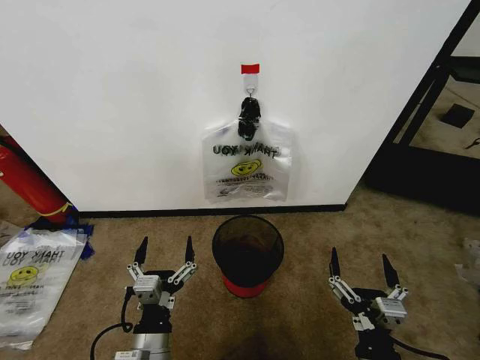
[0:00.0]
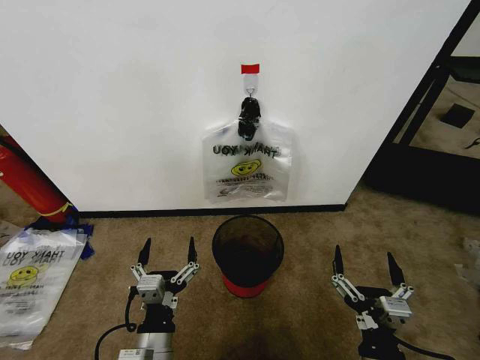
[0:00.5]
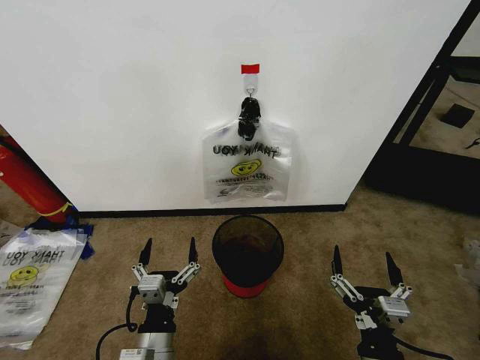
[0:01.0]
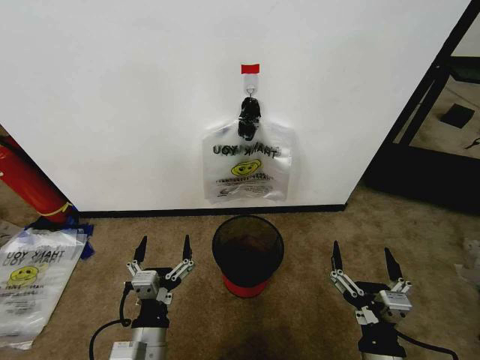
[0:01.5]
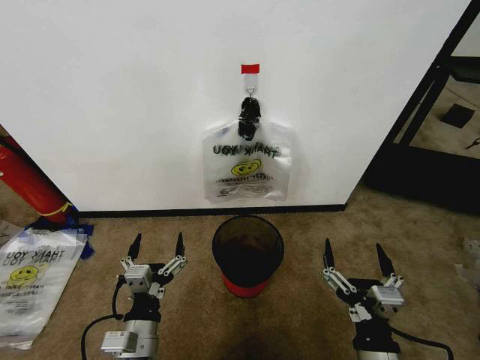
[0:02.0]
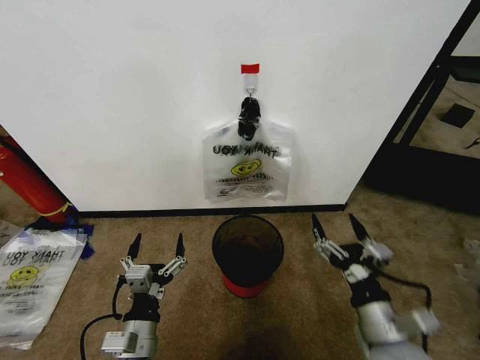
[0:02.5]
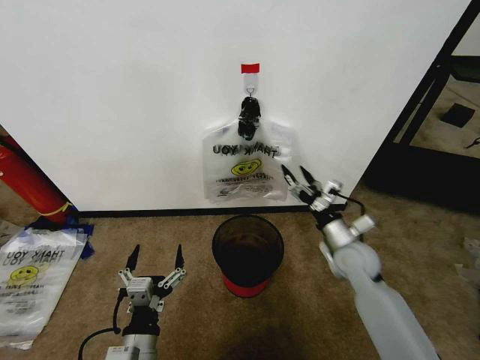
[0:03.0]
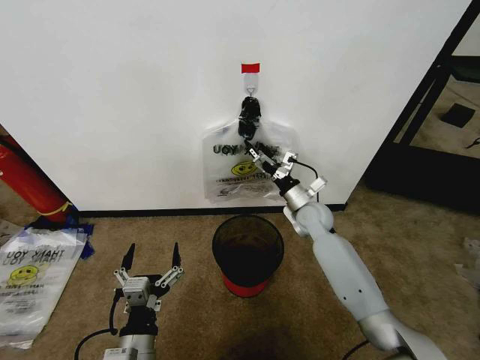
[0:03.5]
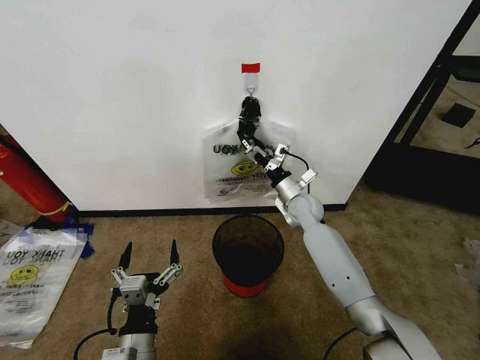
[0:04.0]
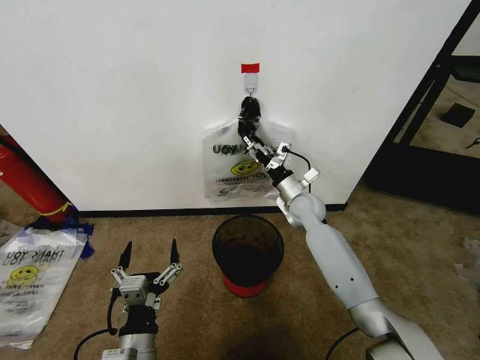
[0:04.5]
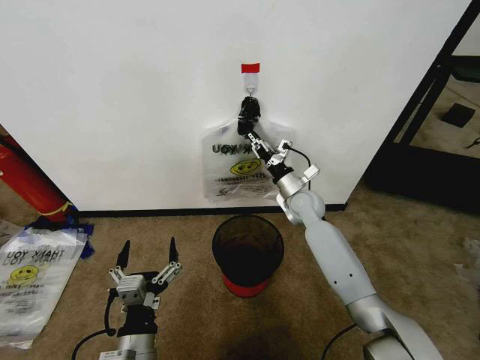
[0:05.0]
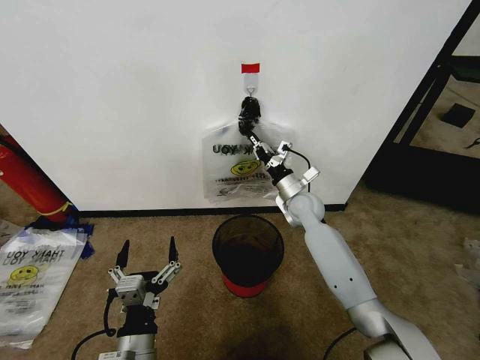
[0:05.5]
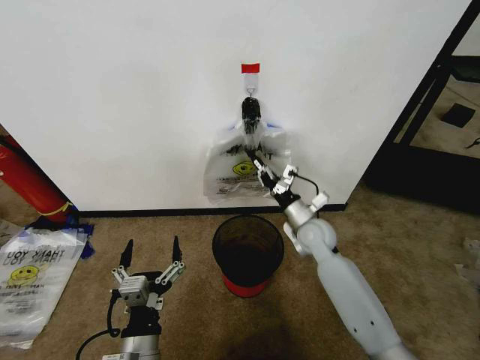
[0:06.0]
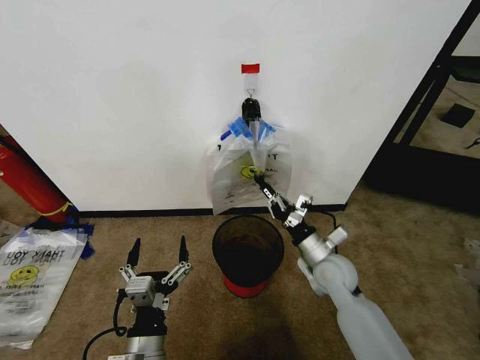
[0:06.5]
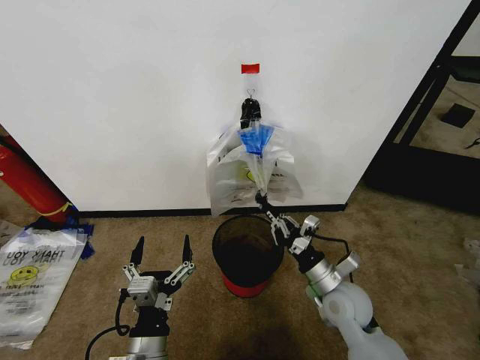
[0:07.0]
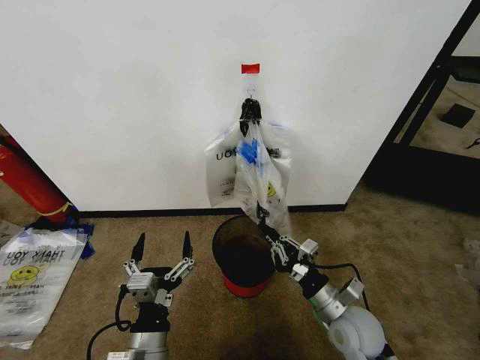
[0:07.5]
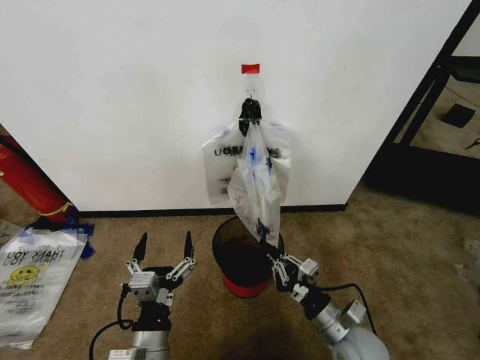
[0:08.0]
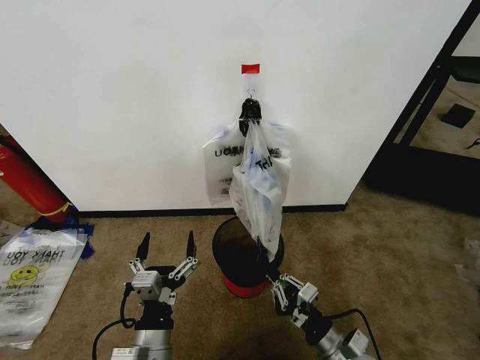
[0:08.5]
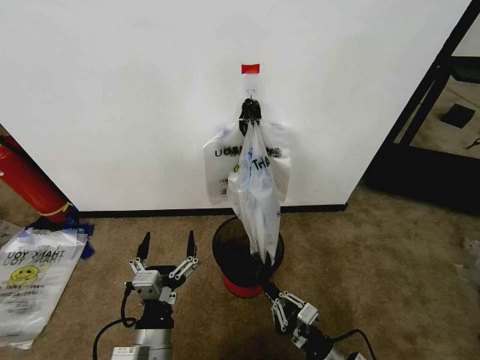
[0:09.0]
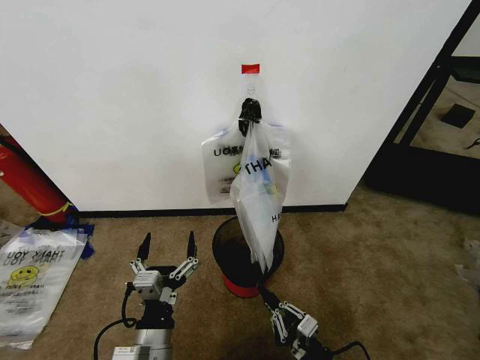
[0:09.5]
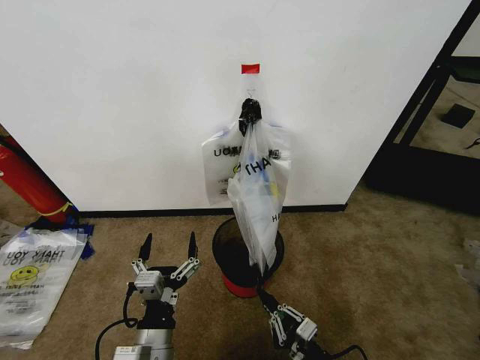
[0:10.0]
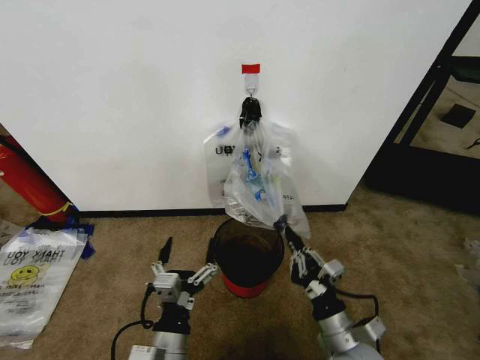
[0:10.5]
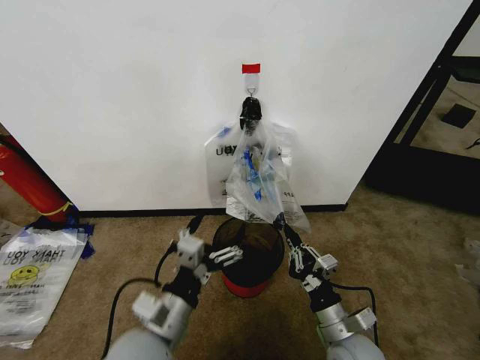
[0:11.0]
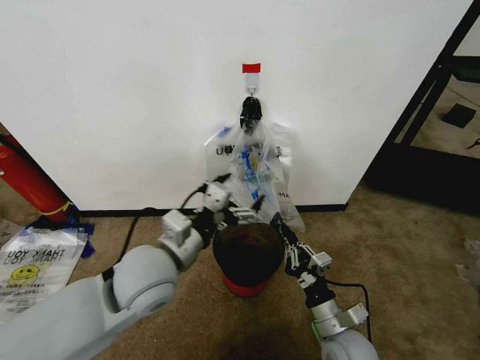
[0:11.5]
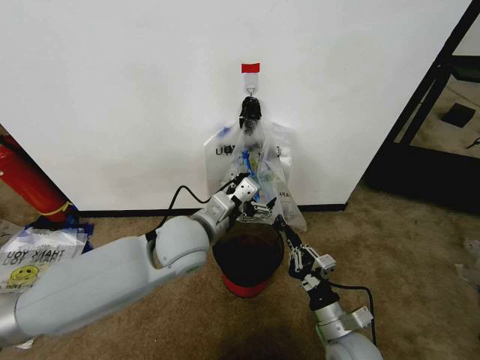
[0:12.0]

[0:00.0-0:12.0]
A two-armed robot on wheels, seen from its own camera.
Task of the whole recording: Pick up the garbage bag from the wall and place it over the trash bin.
0:02.0 to 0:04.0: The right gripper is displaced forward by some 40 cm.
0:04.0 to 0:06.0: The right gripper travels backward by about 10 cm, and closes up.
0:06.0 to 0:08.0: The right gripper travels backward by approximately 25 cm.
0:08.0 to 0:10.0: The right gripper travels backward and downward by some 10 cm.
0:10.0 to 0:12.0: The left gripper moves forward and upward, approximately 25 cm, while the right gripper shifts some 10 cm forward and upward.

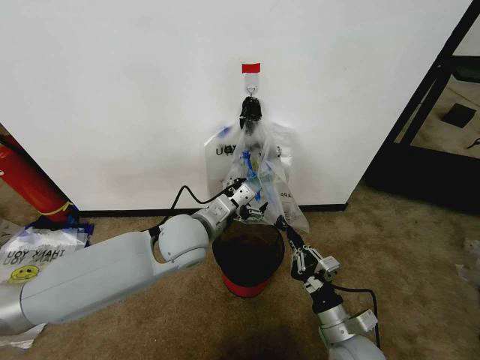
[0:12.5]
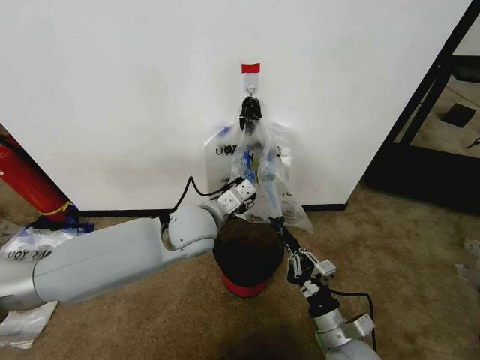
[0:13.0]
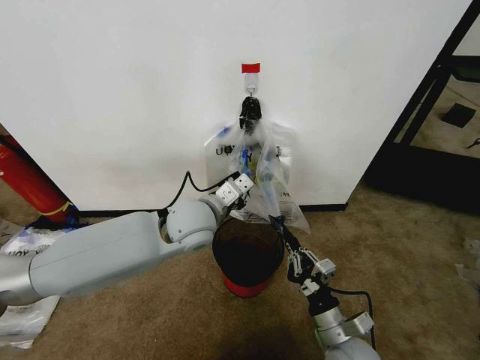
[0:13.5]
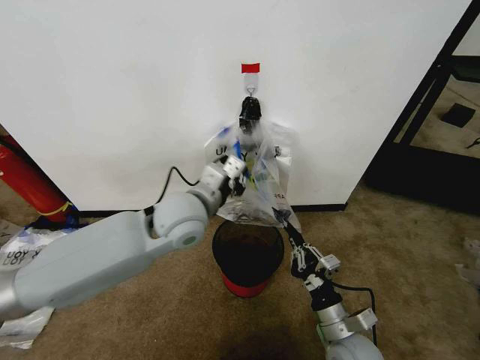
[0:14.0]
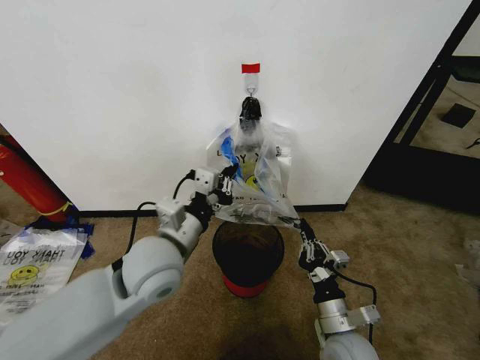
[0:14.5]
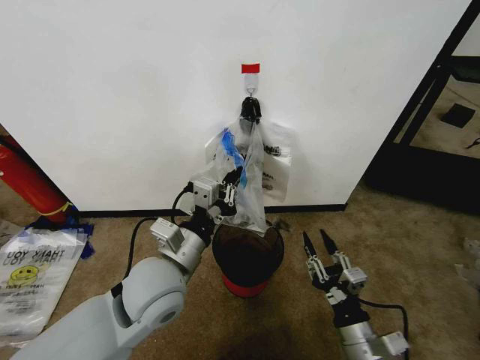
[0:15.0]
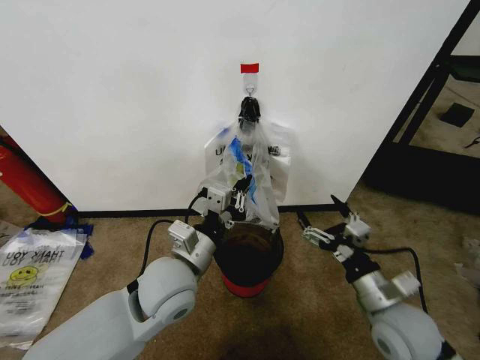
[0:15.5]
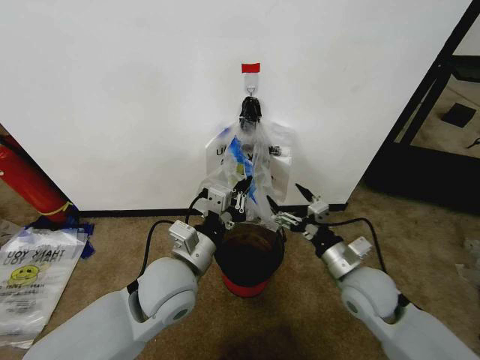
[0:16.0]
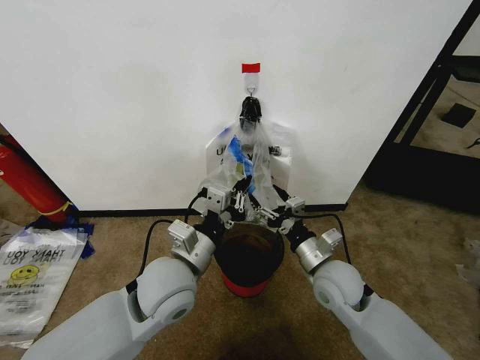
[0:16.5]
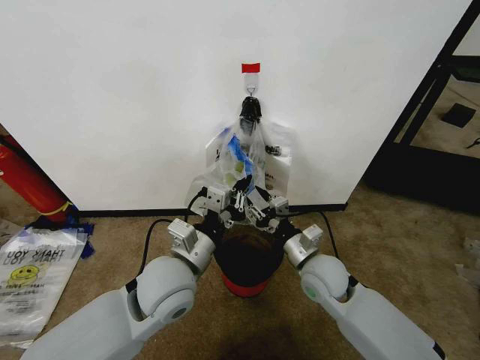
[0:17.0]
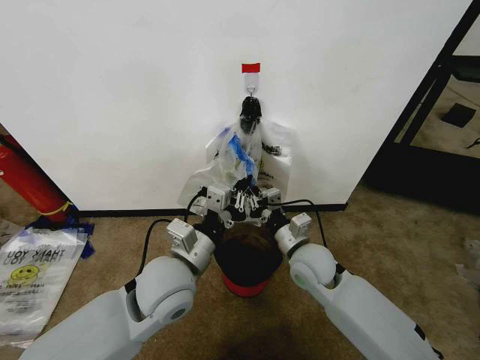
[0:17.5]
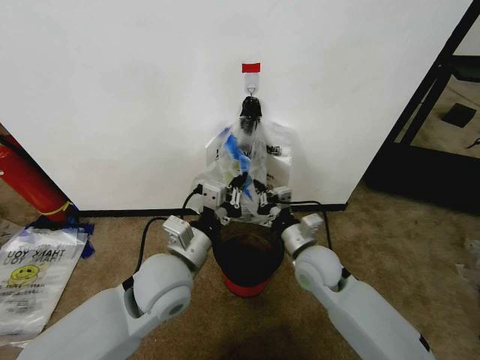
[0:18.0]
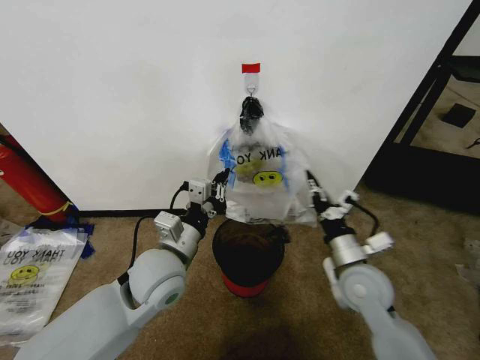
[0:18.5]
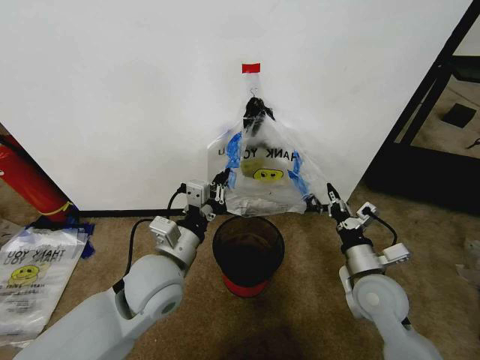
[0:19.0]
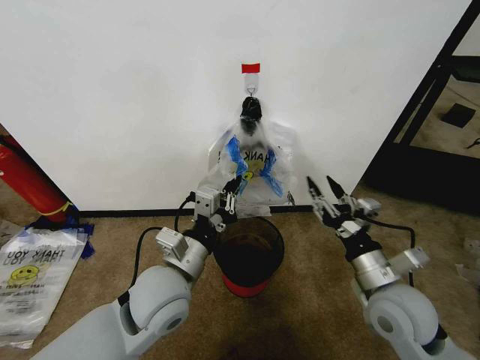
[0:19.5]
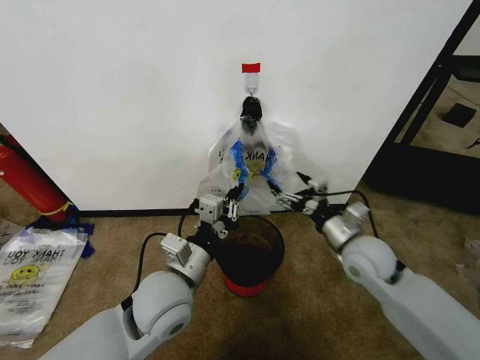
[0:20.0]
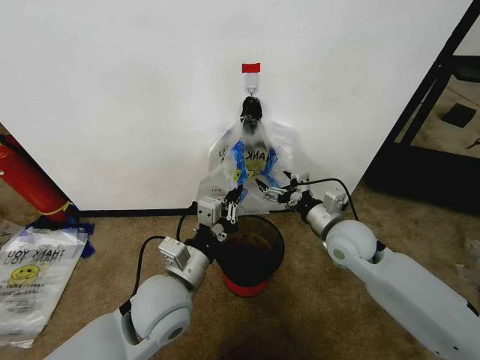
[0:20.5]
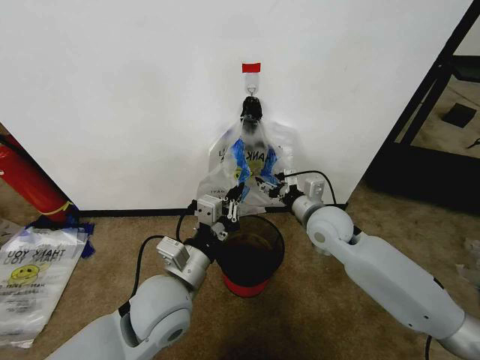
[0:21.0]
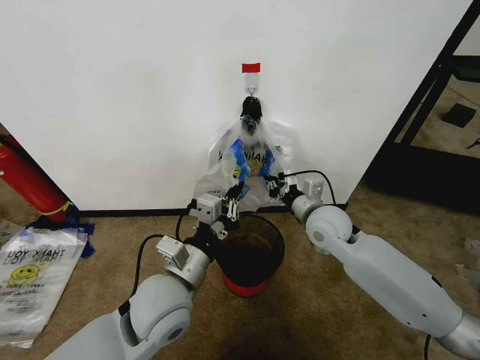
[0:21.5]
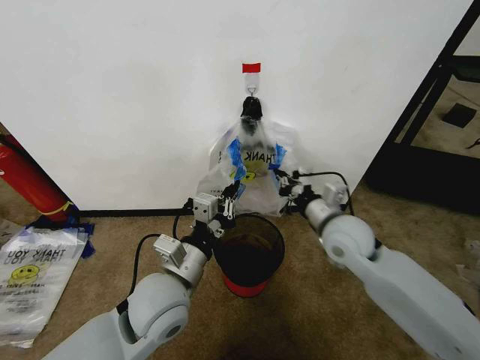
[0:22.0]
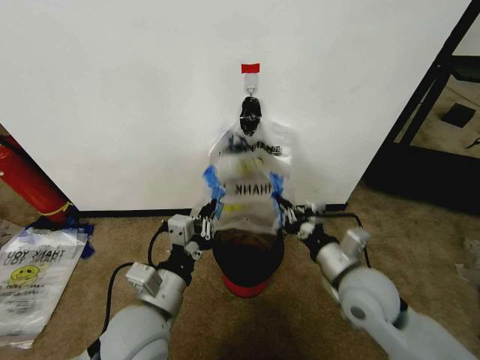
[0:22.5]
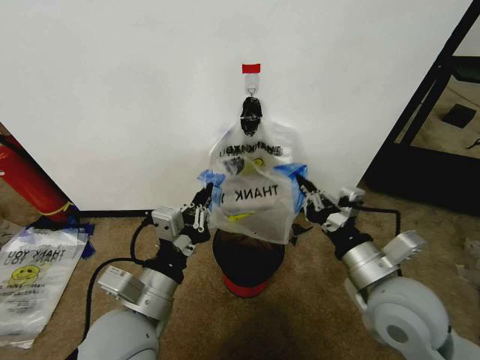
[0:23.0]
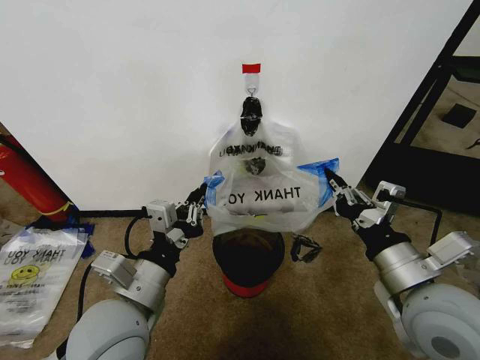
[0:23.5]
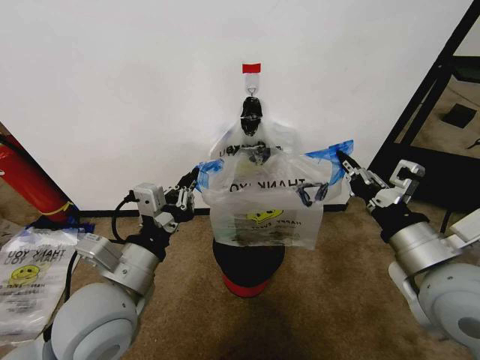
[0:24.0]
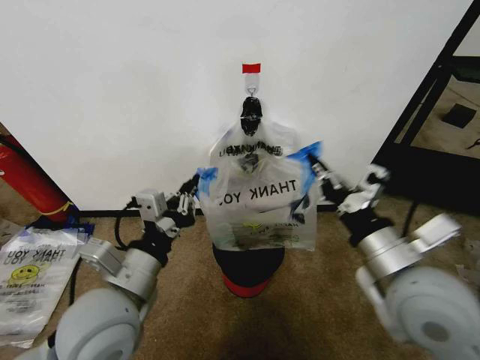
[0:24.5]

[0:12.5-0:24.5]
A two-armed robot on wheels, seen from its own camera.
Task of the whole recording: Pick up the garbage bag from the wall and place it over the trash bin.
0:12.5 to 0:14.5: The left gripper goes roughly 5 cm backward, and closes.
0:14.5 to 0:16.5: The right gripper is displaced forward and upward by roughly 15 cm, and opens up.
0:16.5 to 0:18.5: The right gripper goes roughly 5 cm to the right, and closes.
0:18.5 to 0:20.5: The right gripper is displaced forward by about 10 cm, and opens up, while the left gripper moves some 5 cm.
0:20.5 to 0:22.5: The left gripper ends up about 5 cm from where it was, while the right gripper moves backward, roughly 10 cm, and closes its fingers.
0:22.5 to 0:24.5: The left gripper shifts about 5 cm upward. Meanwhile the right gripper shifts approximately 10 cm upward and backward.

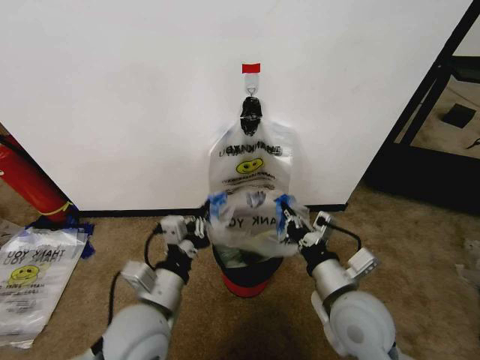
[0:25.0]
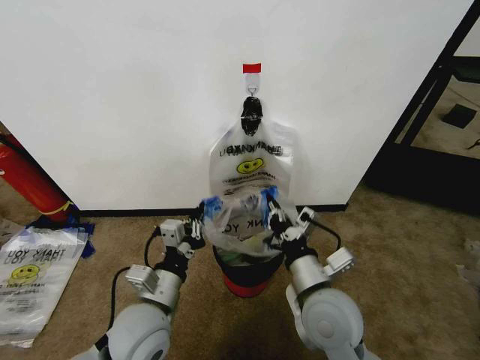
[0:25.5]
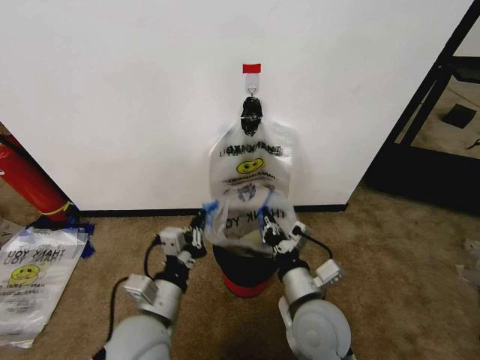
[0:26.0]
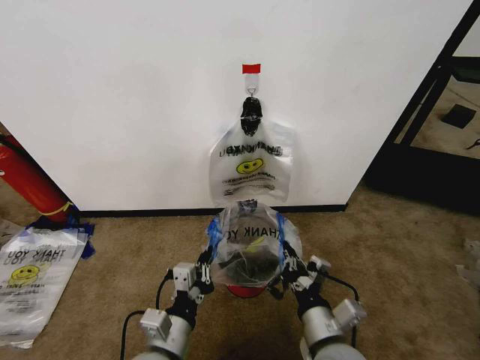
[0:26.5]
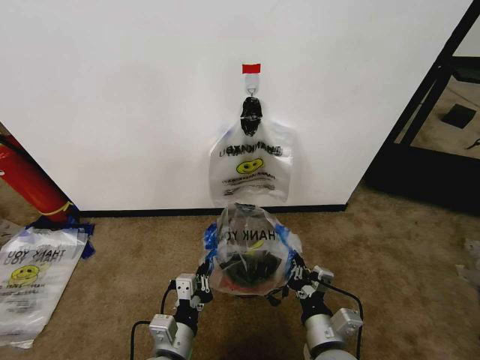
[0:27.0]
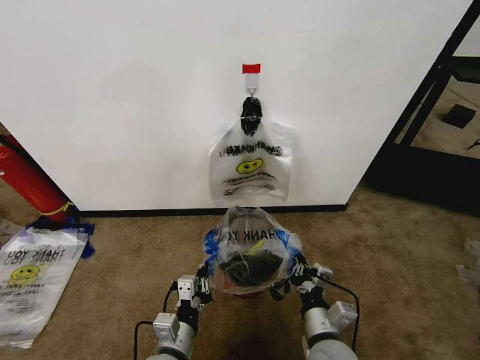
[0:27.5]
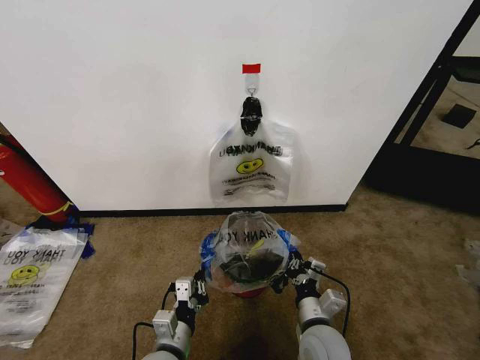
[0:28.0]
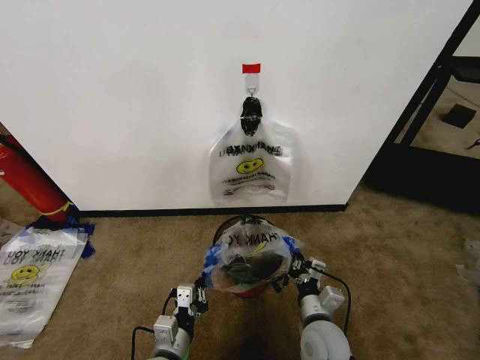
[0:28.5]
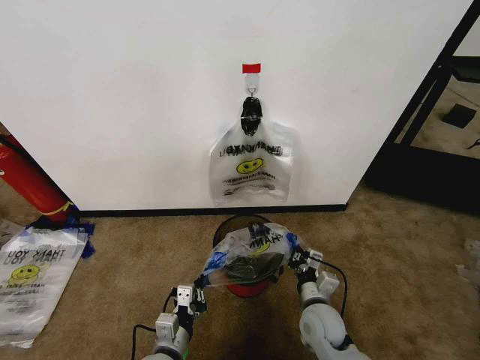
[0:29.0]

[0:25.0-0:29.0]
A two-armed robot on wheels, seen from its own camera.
Task of the whole recording: Pick up the garbage bag from the wall and place it over the trash bin.
0:25.0 to 0:27.0: The two grippers go about 10 cm downward and backward.
0:27.0 to 0:29.0: The right gripper is displaced forward and downward by about 15 cm. The left gripper shifts by some 5 cm.
